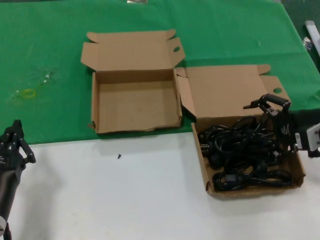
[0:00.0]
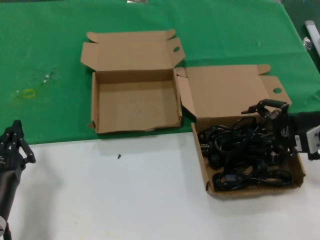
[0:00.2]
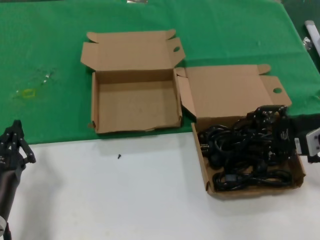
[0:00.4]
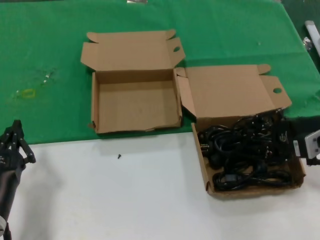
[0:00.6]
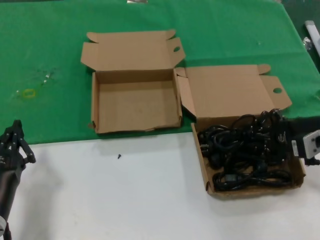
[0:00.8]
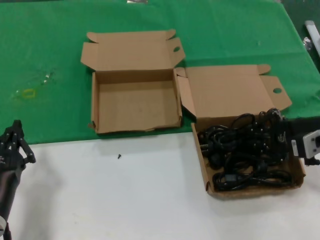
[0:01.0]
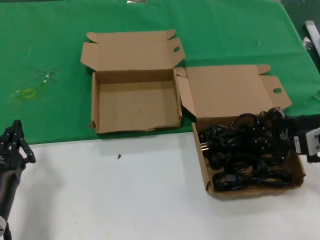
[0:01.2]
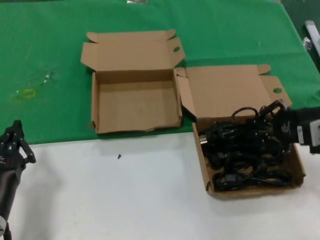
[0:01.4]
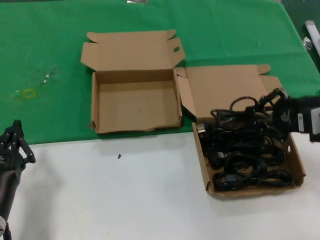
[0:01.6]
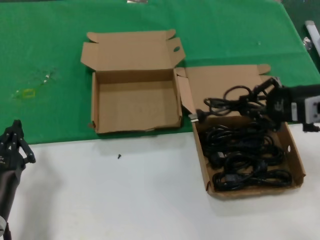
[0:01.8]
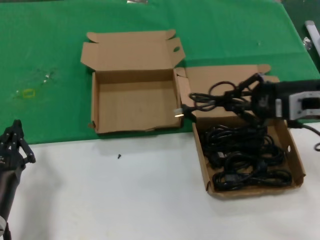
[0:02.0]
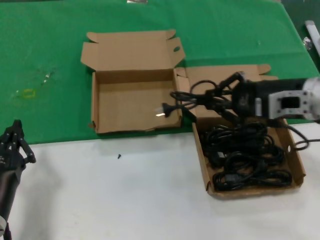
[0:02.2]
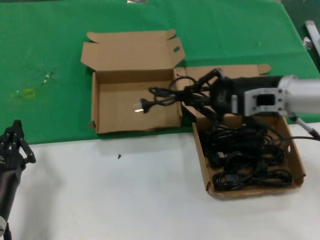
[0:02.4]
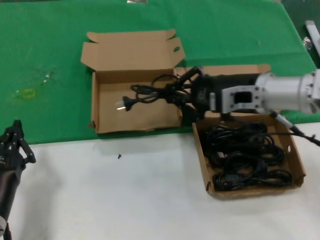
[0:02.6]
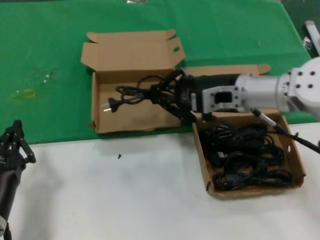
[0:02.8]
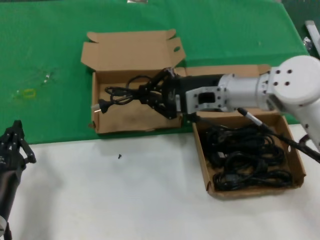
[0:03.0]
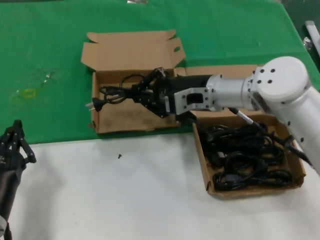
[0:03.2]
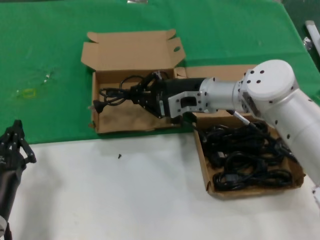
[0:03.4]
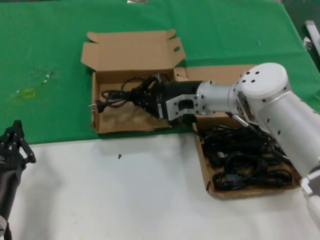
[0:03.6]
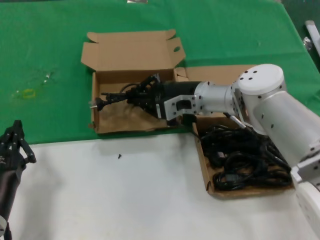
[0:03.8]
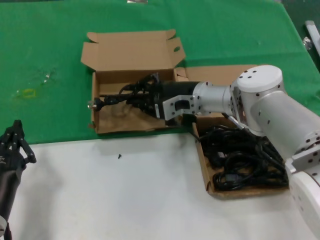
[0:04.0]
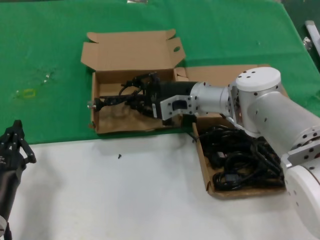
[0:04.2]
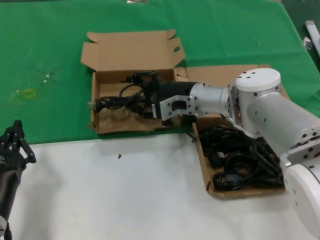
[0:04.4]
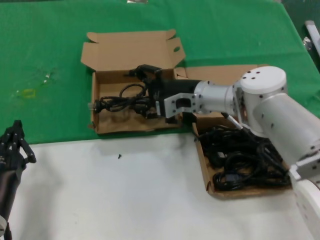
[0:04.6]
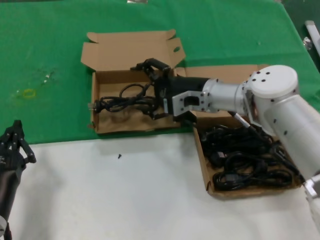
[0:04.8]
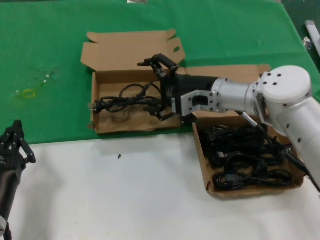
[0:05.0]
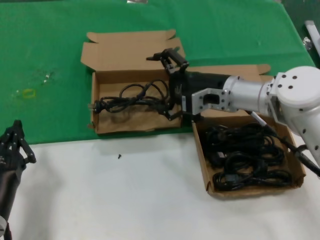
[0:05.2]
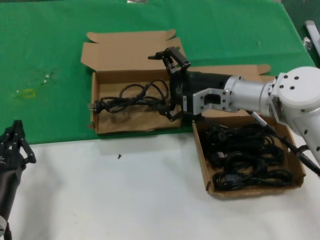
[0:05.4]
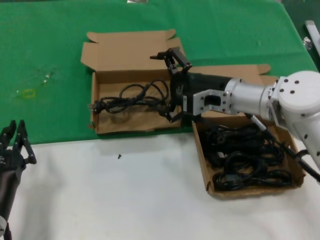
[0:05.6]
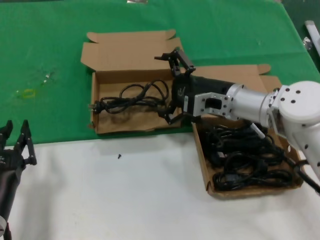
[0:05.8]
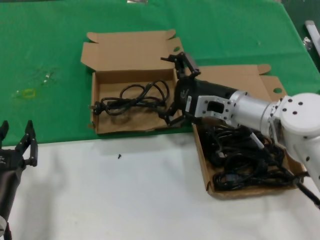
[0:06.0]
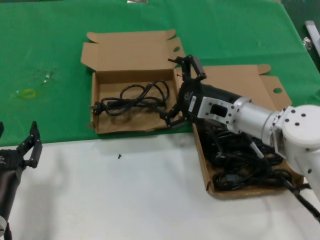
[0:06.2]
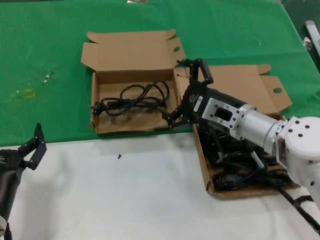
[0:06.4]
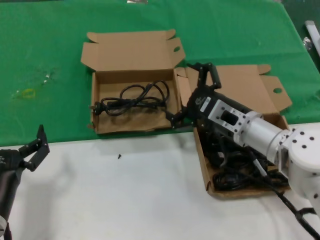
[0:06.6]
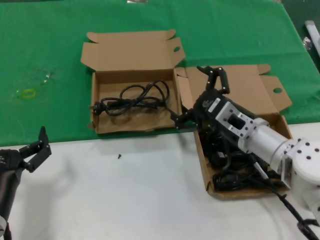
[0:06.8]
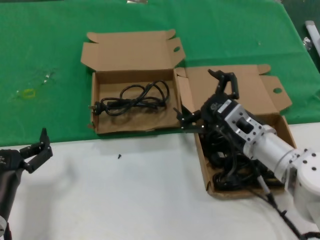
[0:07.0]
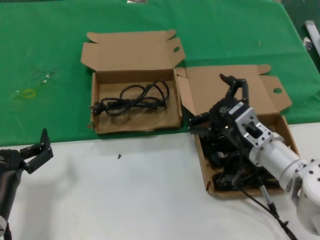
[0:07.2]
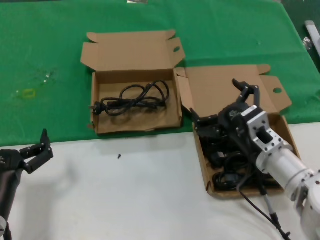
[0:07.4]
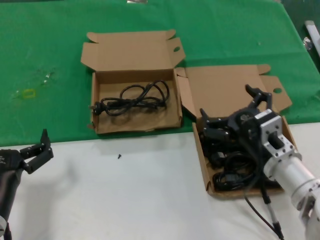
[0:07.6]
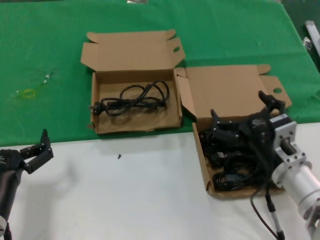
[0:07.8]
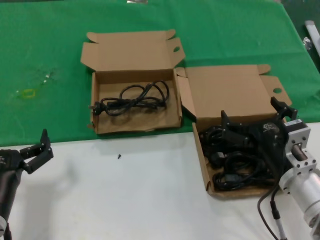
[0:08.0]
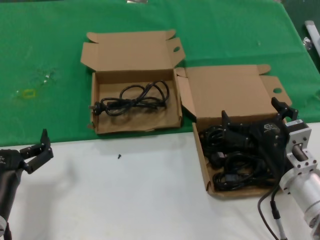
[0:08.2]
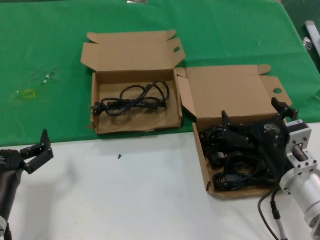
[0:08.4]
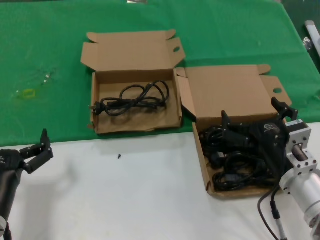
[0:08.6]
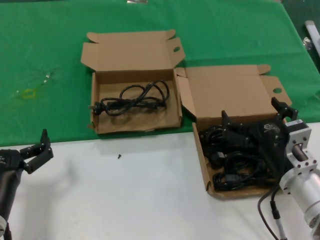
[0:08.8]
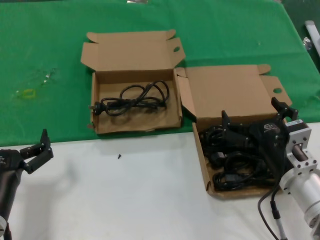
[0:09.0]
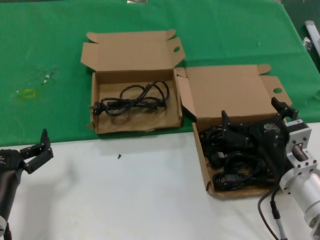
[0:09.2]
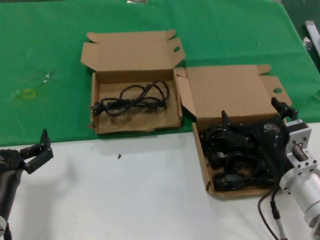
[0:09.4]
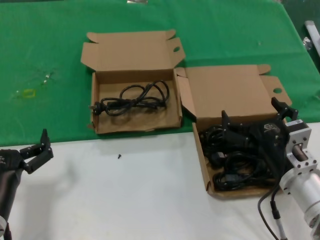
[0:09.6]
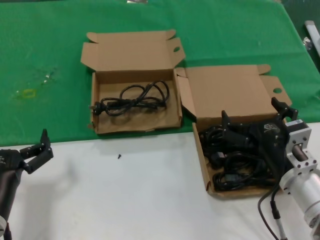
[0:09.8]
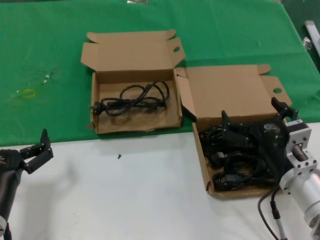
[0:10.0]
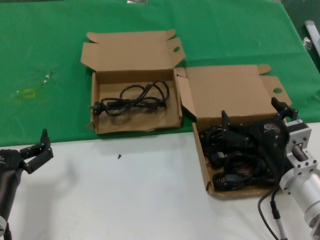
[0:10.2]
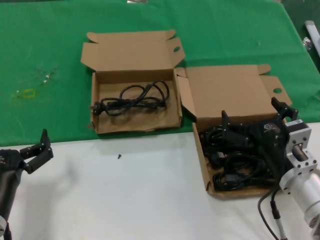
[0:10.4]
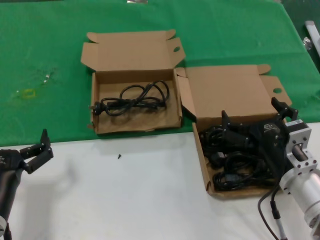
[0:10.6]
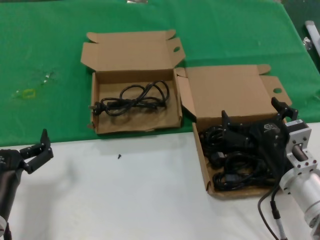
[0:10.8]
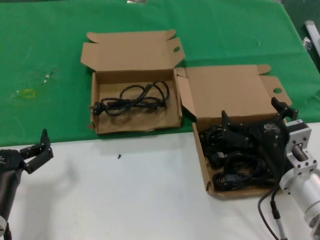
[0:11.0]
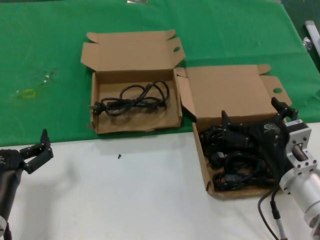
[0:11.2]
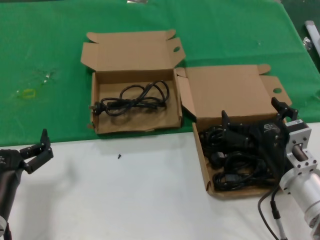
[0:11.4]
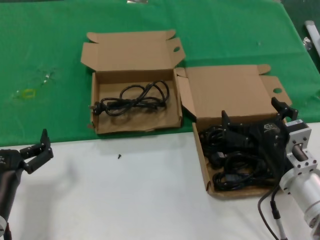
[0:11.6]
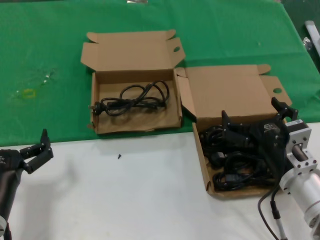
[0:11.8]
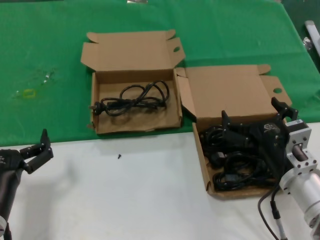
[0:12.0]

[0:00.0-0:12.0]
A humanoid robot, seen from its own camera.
Task of the whole recording: take the parts from the box containing them and put them into an empty box.
Step, 0:01.2 to 0:04.4: Place the data cable in the another box.
0:00.0 to 0:01.6: The hands move only a little.
0:01.6 to 0:03.0: The right hand shifts about 20 cm to the left and forward.
0:03.0 to 0:04.4: The right hand is displaced forward and downward by some 10 cm.
0:04.4 to 0:06.0: The right hand moves backward and to the right, approximately 10 cm.
0:06.0 to 0:07.6: The right hand is displaced backward and downward by roughly 15 cm.
0:07.6 to 0:09.0: The hands stay close to where they were, moving slightly.
0:09.0 to 0:12.0: The two hands keep their place.

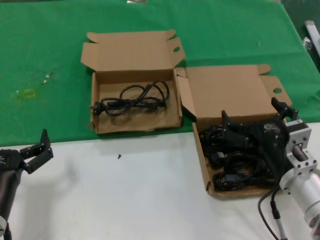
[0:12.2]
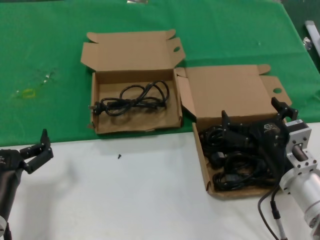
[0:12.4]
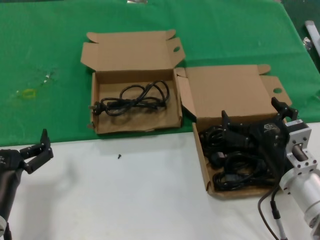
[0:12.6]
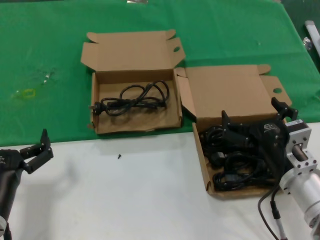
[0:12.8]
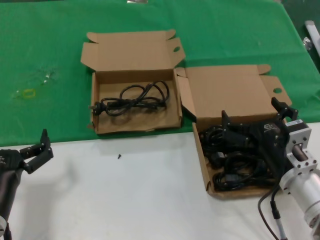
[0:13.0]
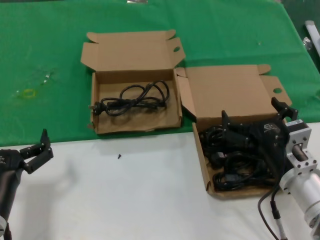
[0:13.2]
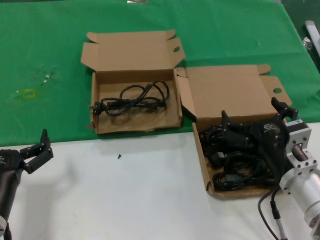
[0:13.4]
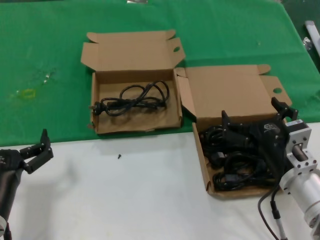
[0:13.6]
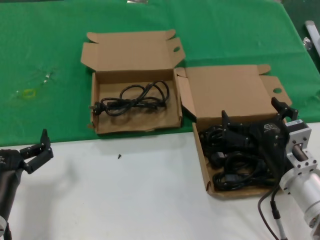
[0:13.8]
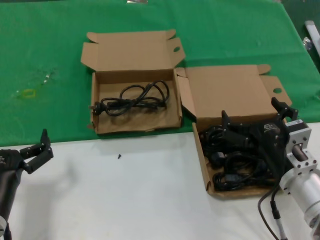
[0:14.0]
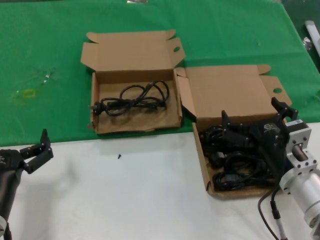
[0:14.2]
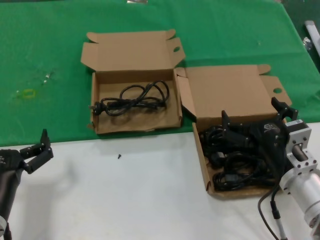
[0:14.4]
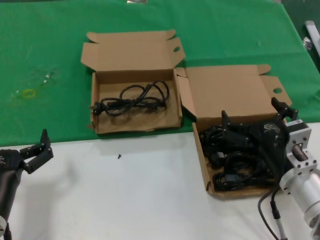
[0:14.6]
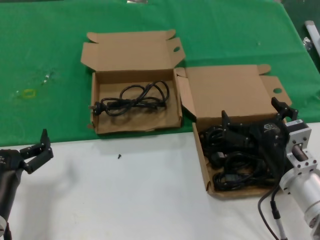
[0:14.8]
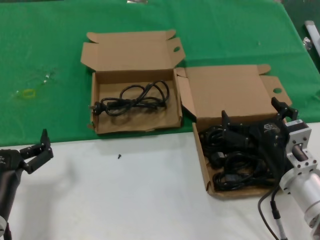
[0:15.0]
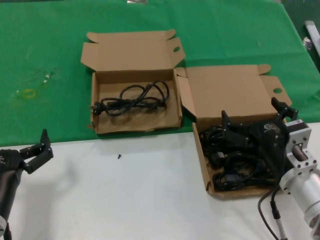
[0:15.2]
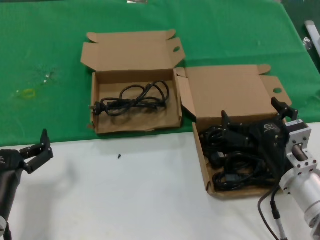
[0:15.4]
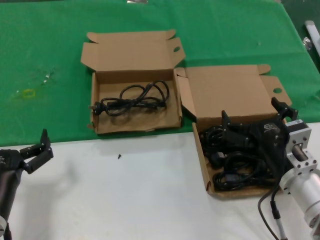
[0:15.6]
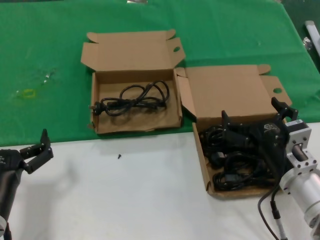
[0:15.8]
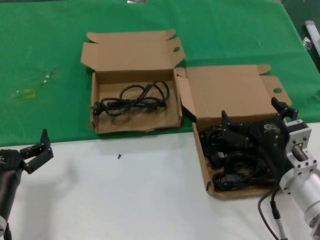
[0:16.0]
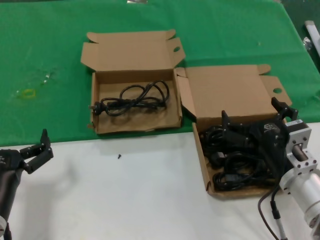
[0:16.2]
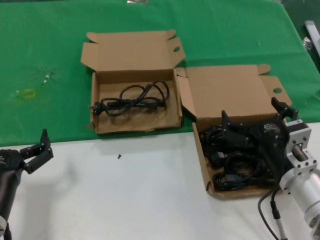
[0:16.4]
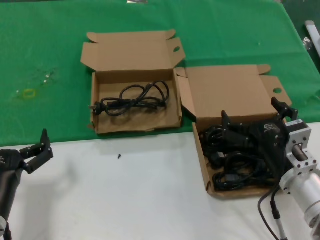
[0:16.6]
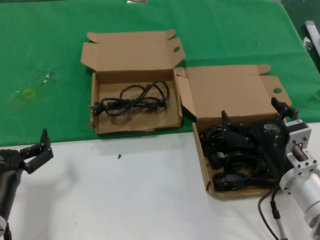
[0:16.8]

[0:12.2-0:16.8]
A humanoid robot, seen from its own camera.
Task of the whole recording: take the parts from the box containing them and put them into an empty box.
0:12.2 to 0:16.8: Both hands stay put.

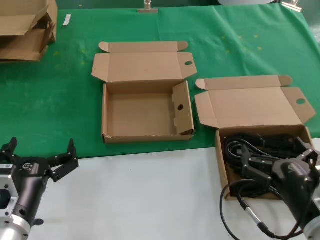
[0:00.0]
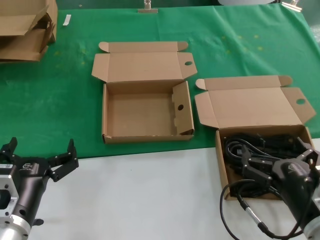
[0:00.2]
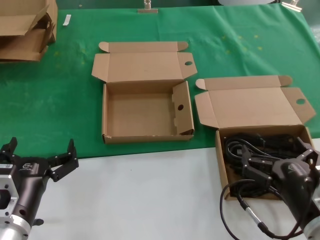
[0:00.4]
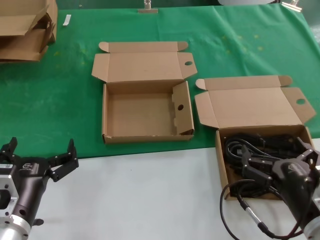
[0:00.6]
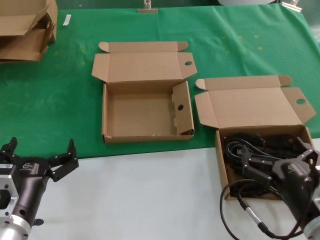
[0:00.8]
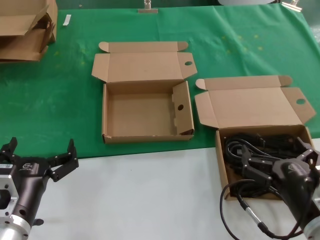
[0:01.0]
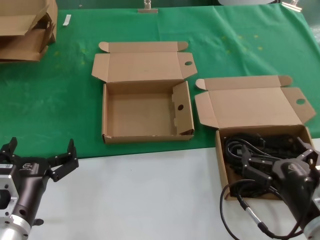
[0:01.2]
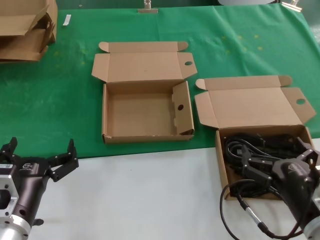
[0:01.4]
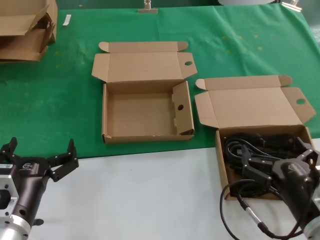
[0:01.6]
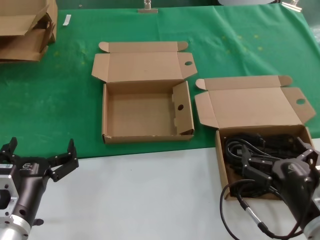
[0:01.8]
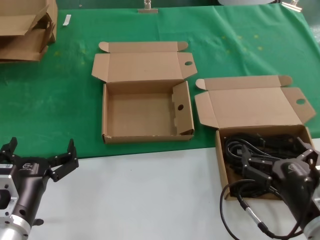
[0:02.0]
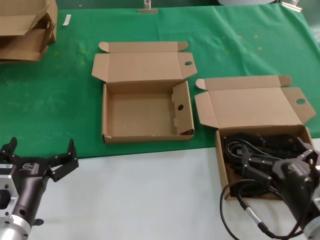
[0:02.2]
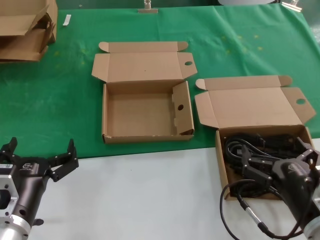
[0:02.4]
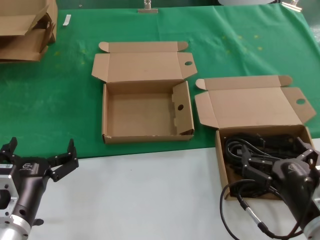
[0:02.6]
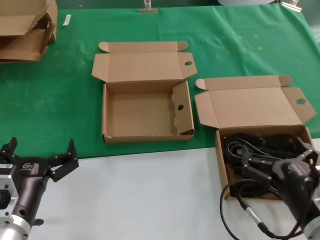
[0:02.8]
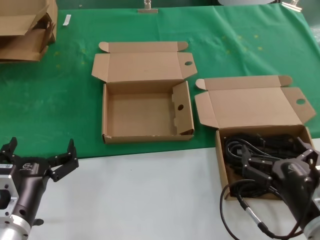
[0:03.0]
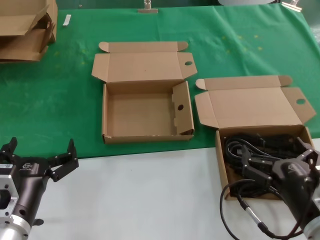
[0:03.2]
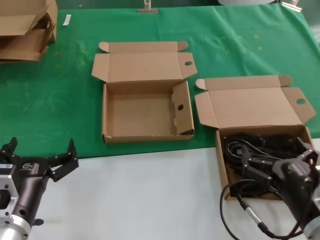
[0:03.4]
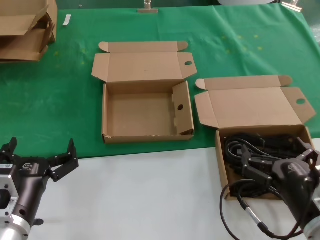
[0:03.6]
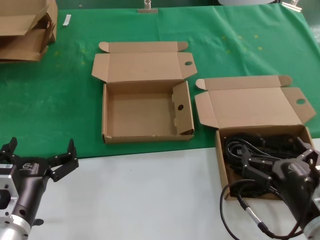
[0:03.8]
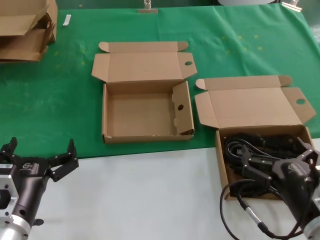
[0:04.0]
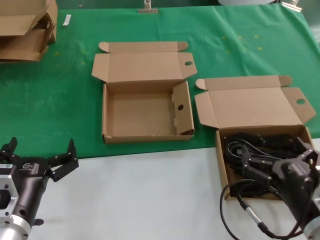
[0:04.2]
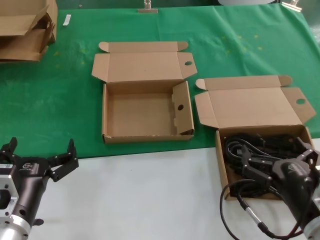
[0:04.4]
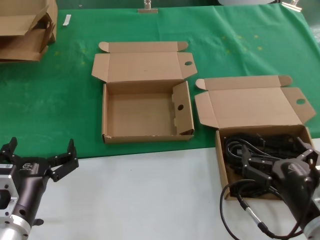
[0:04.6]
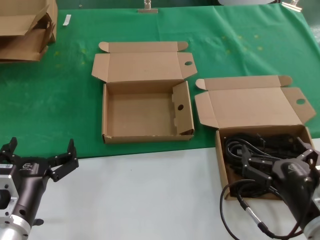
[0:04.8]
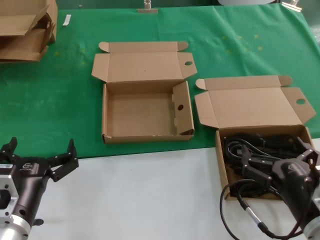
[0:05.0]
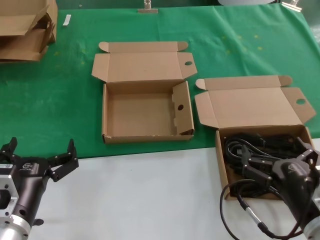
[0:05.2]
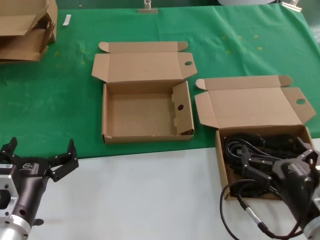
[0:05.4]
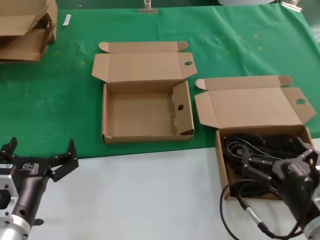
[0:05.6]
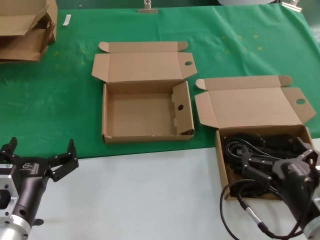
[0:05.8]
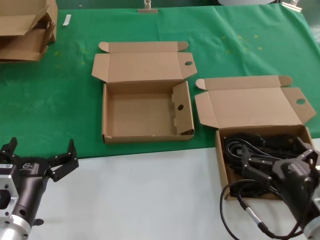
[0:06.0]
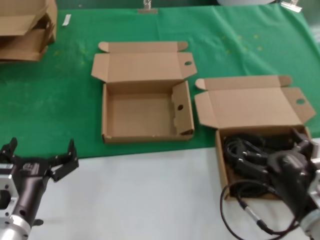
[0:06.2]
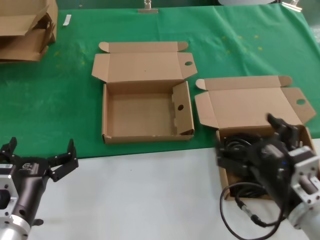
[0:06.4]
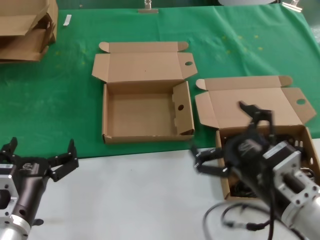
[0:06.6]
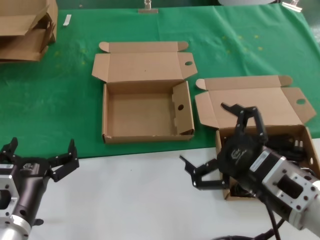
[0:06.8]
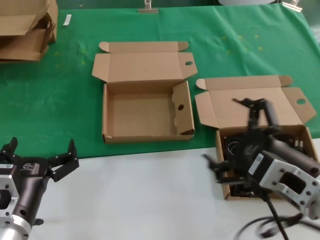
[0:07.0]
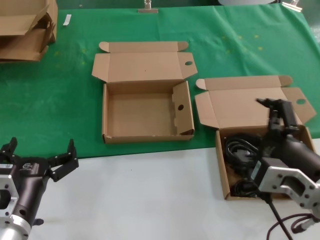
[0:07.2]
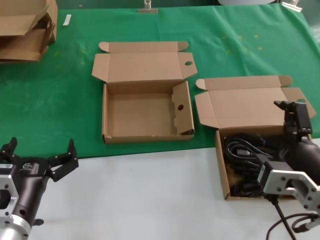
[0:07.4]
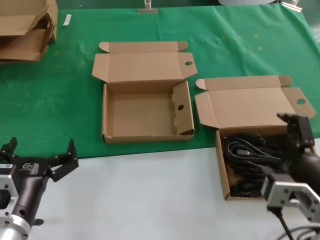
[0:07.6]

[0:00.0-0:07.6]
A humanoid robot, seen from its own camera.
Task of the whole recording: take the parts from the box containing them and put them into an empty box.
0:00.0 to 0:06.0: Both hands stay about where they are.
0:06.0 to 0:07.6: The right hand goes some 10 cm upward.
